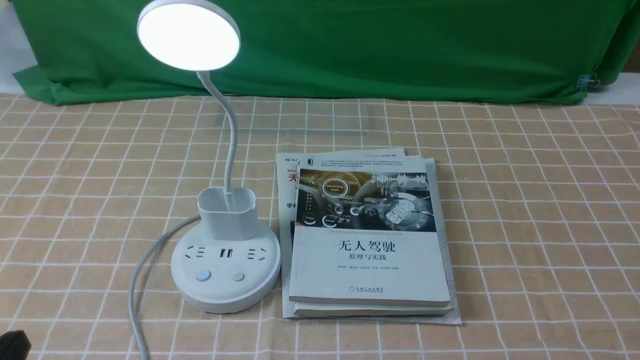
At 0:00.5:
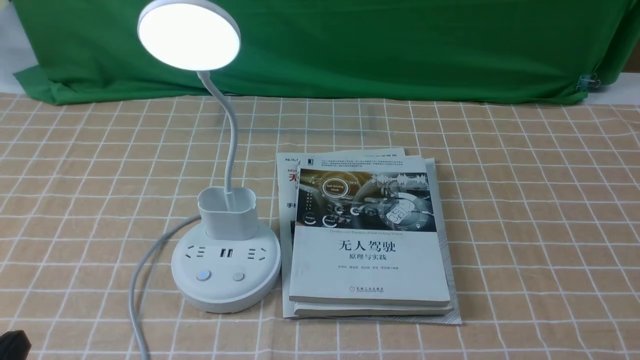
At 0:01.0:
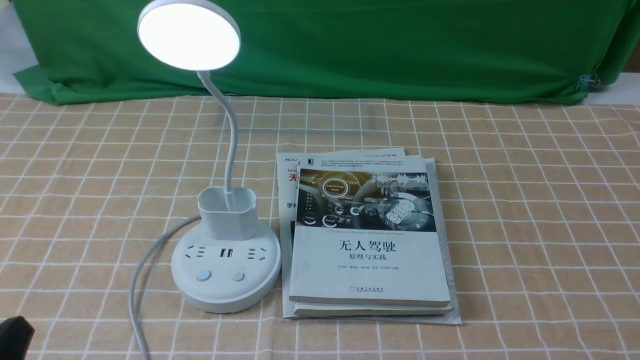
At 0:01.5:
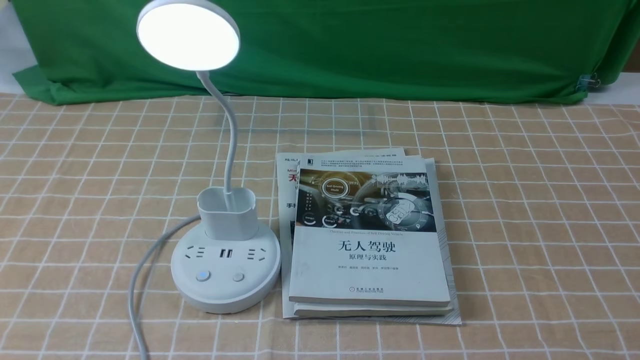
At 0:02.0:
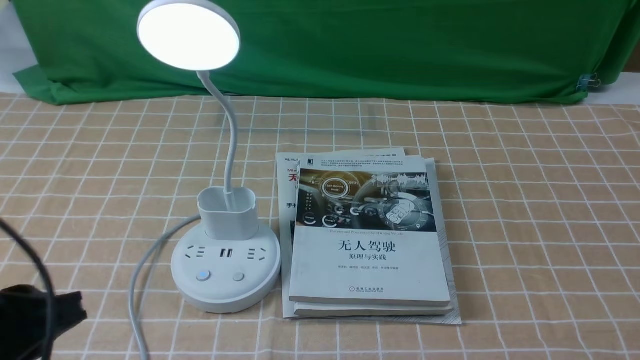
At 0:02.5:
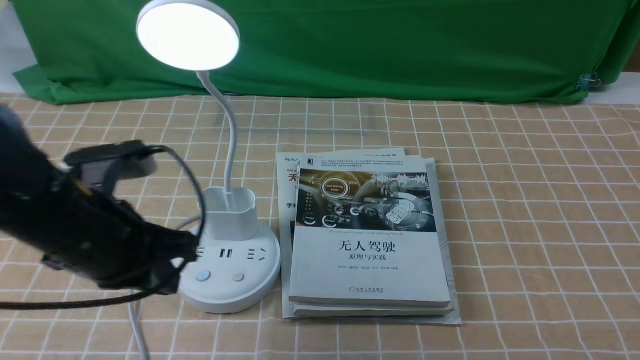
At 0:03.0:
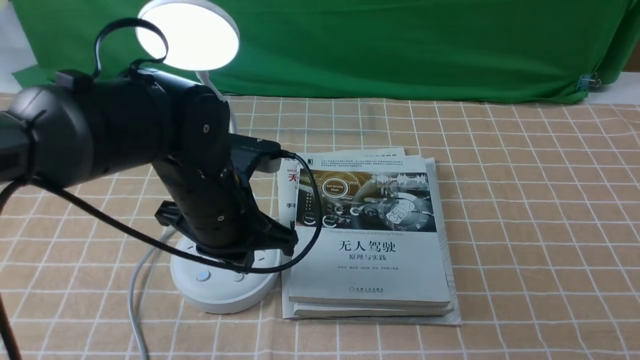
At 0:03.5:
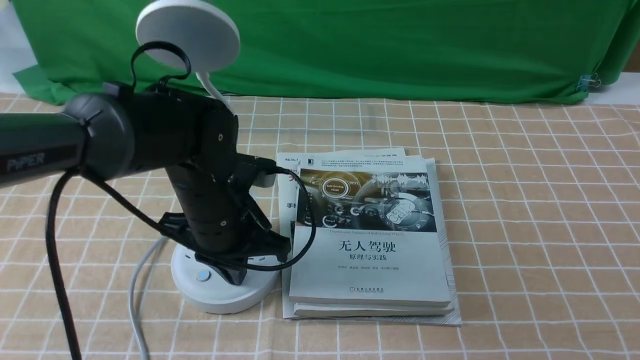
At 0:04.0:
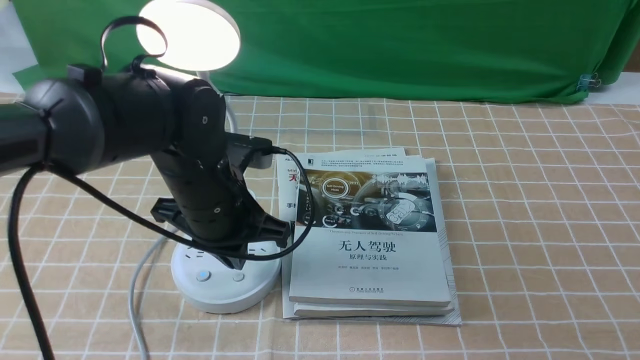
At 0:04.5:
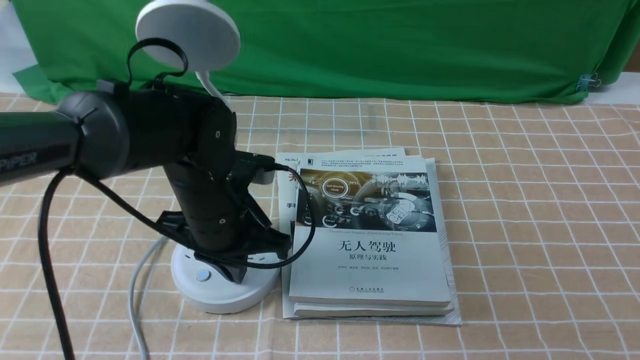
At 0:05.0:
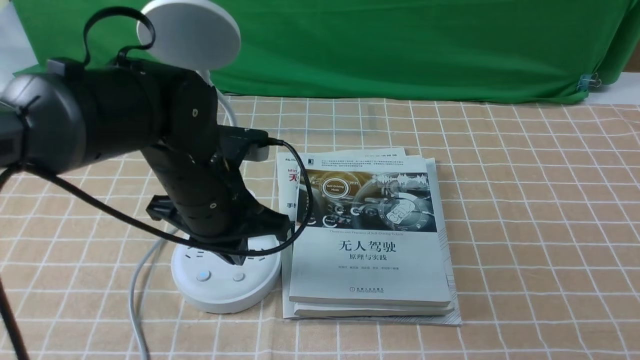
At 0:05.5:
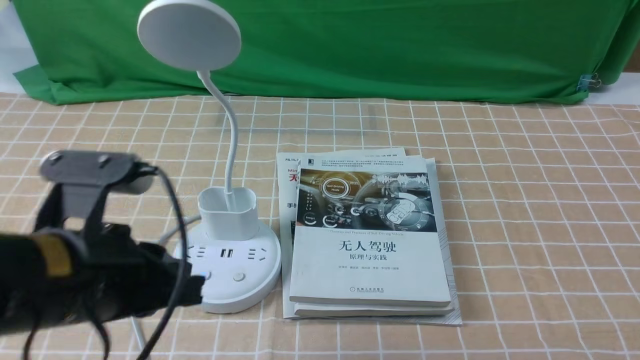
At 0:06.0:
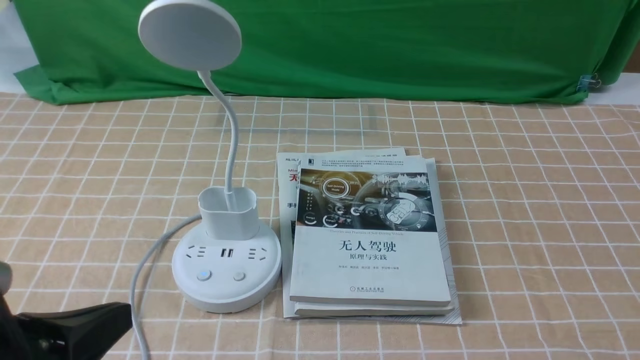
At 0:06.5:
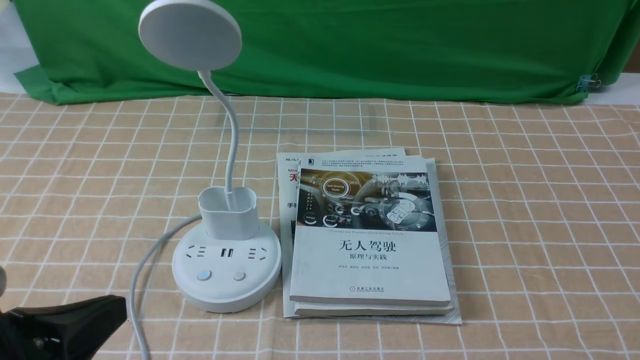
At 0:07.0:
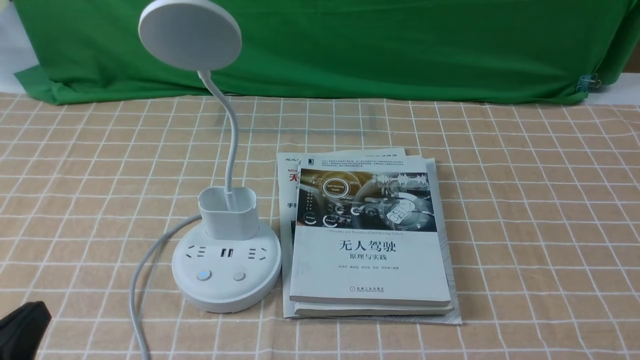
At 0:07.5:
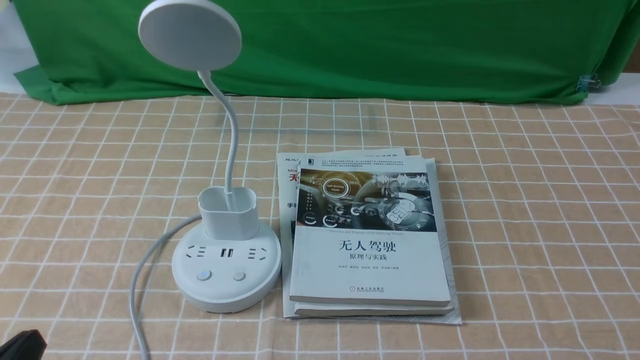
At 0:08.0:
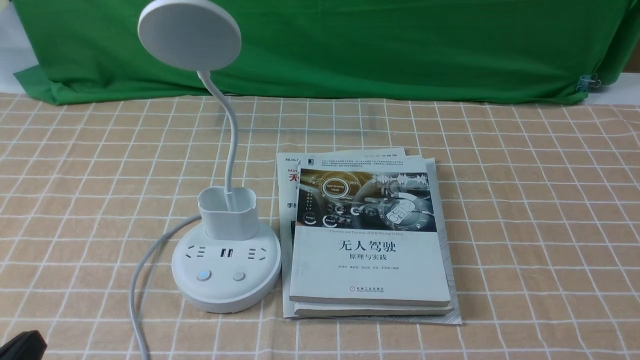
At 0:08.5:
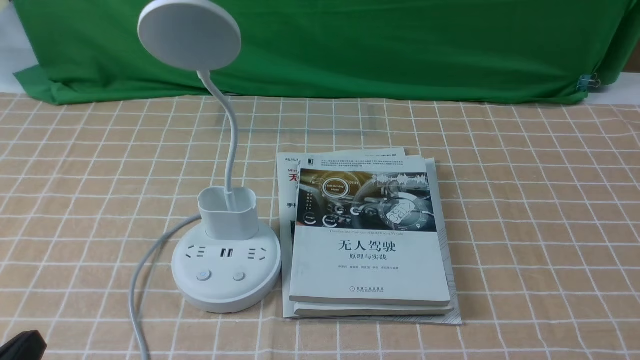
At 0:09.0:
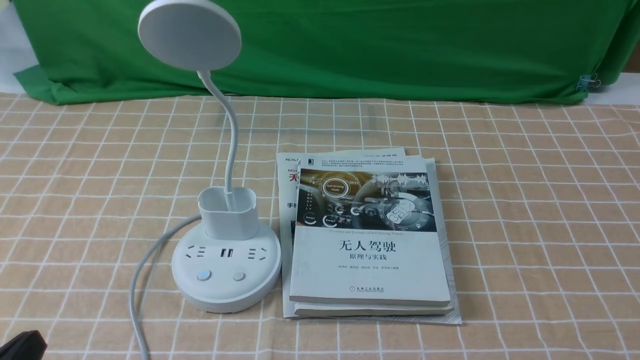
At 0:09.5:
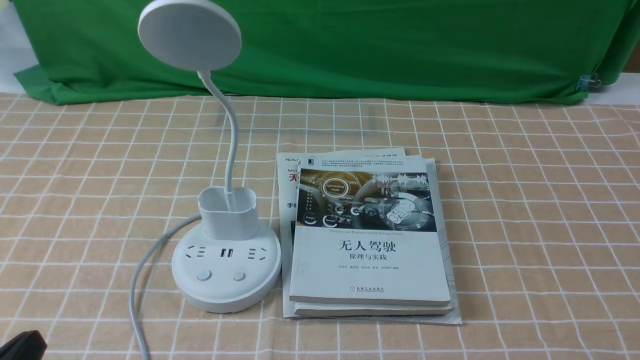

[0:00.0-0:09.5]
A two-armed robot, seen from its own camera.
Task of the whole recording: turn off the desk lamp on the light coffee tablecloth by hand.
Step, 0:00.0 to 0:04.5: use the left arm to press the button switch on the lamp holder.
0:02.0 to 0:04.0: The left gripper moves forward and to the right, approximately 25 cm, and closes its fingers.
0:04.0 to 0:05.5: The left gripper heads backward, upward and to the left, covering approximately 15 cm.
0:05.5 to 0:07.5: The left gripper moves backward, to the left and downward, roughly 20 cm.
0:07.5 to 0:09.5: The two grippers keep their place.

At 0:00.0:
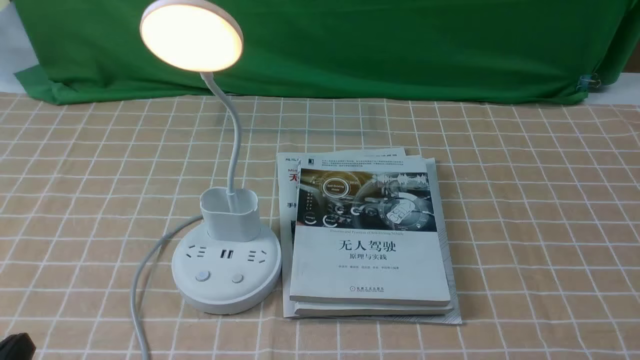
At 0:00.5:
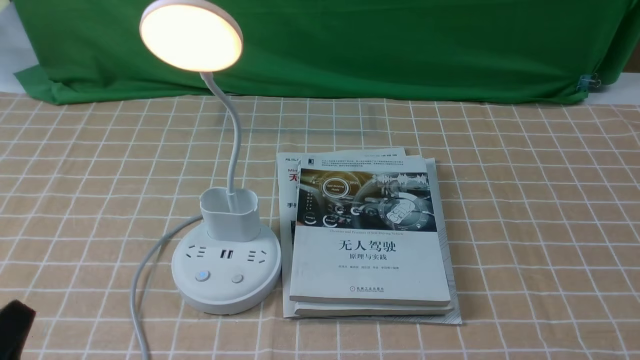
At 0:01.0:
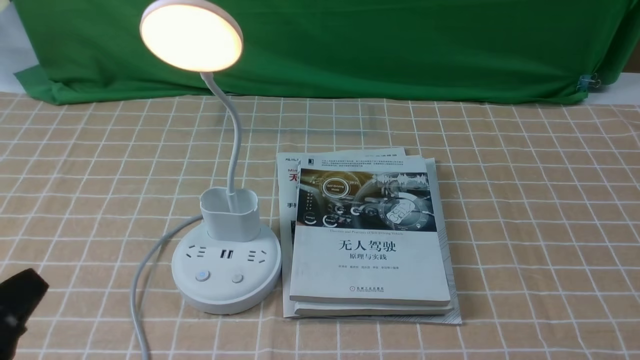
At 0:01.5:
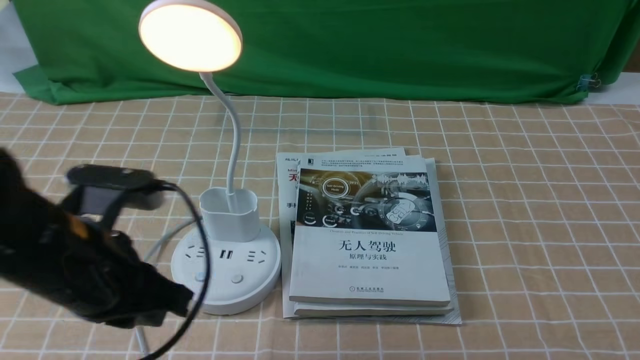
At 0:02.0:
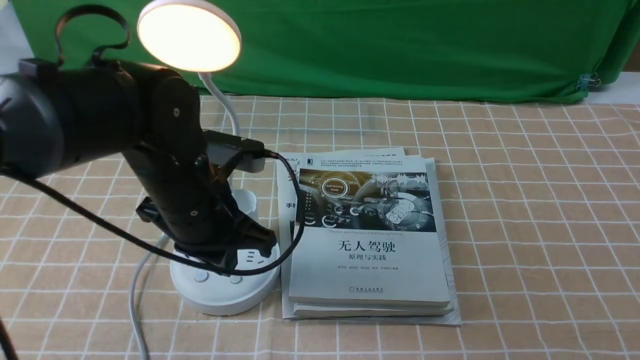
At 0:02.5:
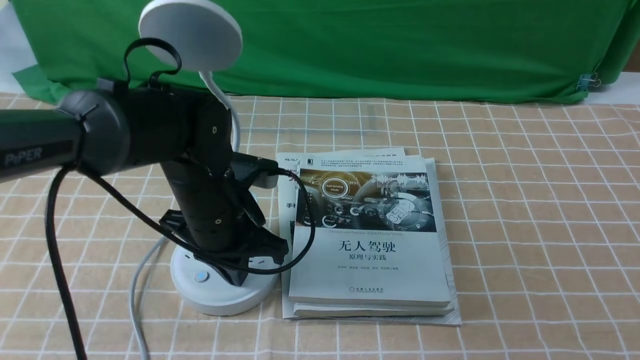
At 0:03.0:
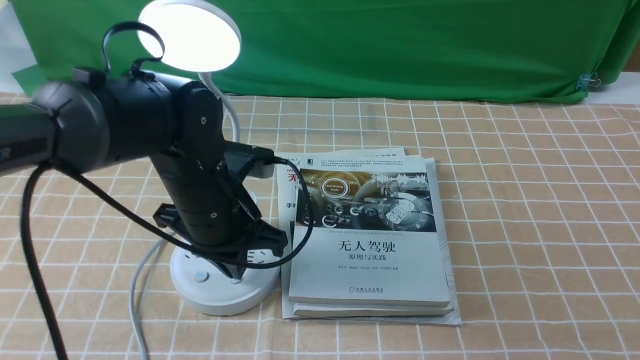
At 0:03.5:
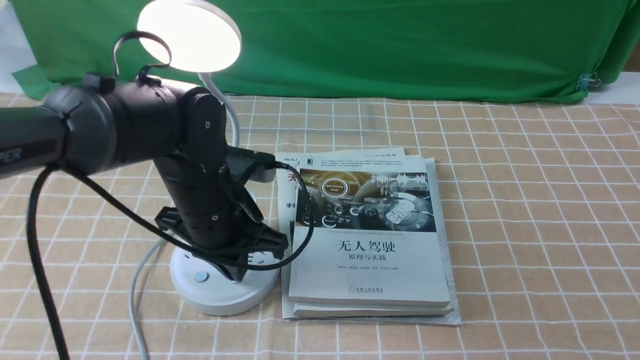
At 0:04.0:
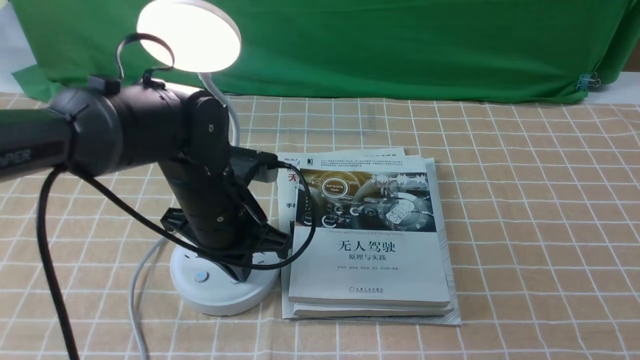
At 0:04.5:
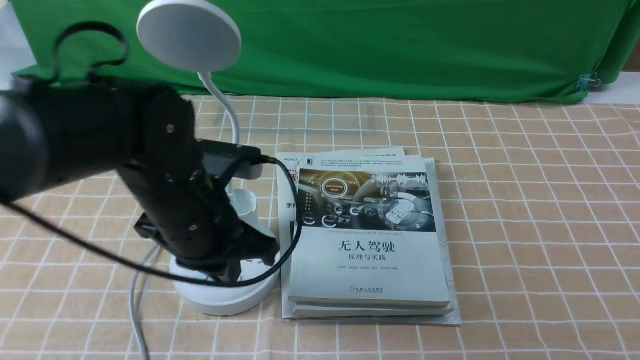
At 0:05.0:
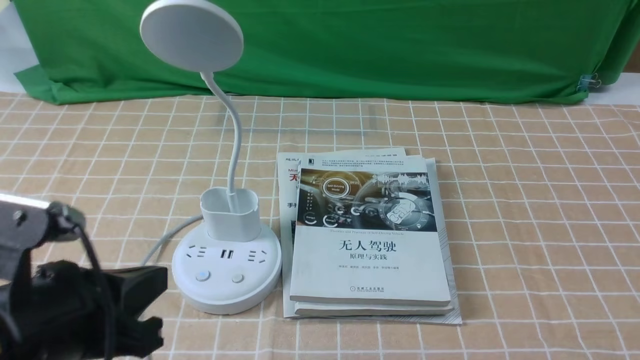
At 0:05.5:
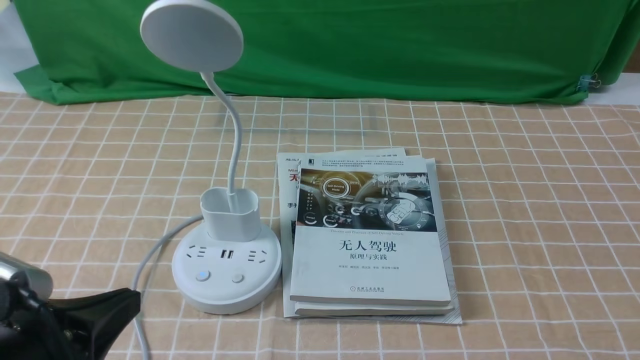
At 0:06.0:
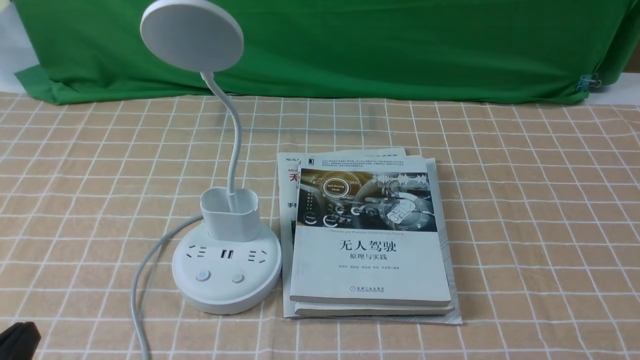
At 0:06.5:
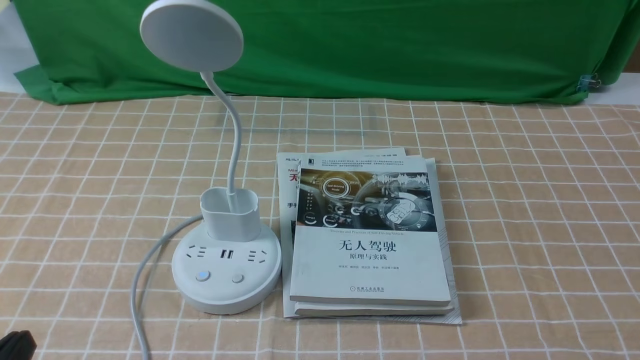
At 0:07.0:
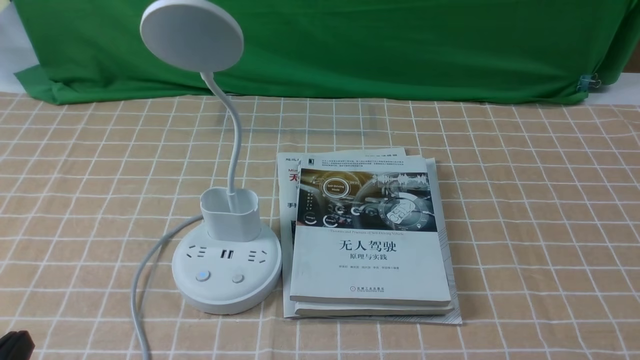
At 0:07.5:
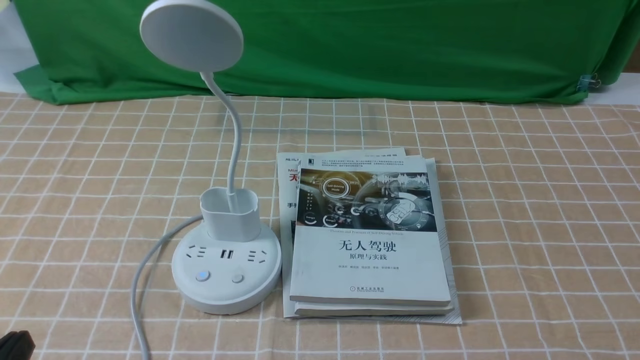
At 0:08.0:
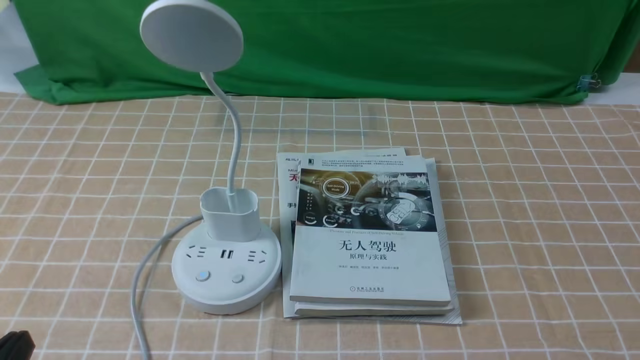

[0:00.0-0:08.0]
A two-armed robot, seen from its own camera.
Task of the whole recording: turn off the desk lamp on the light coffee tablecloth by hand.
Step, 0:00.0 to 0:04.0: use the left arm to press the button switch on the lamp holder.
0:00.0 to 0:02.0: The left gripper moves forward and to the right, some 30 cm.
0:02.0 to 0:04.0: The grippers stay close to where they were, moving slightly.
0:04.0 to 0:06.0: The left gripper shifts approximately 30 cm backward and to the left, and opens up.
0:06.0 to 0:08.0: Both grippers stay put.
